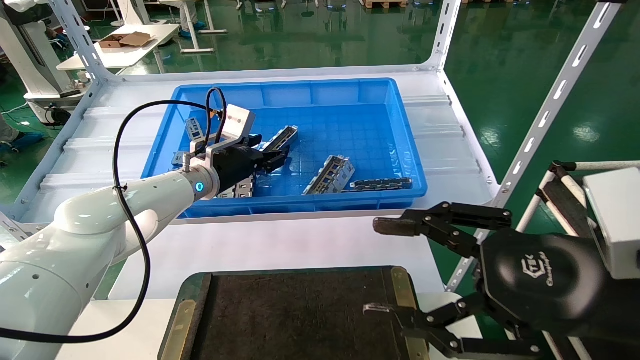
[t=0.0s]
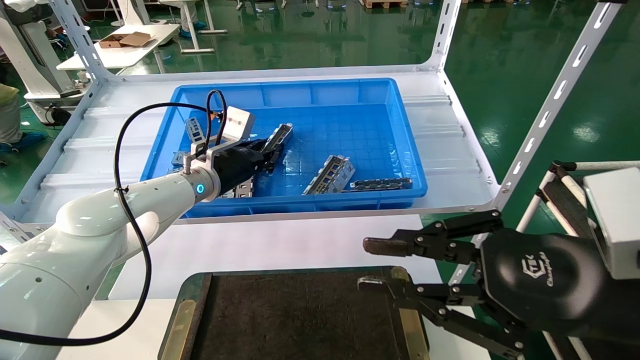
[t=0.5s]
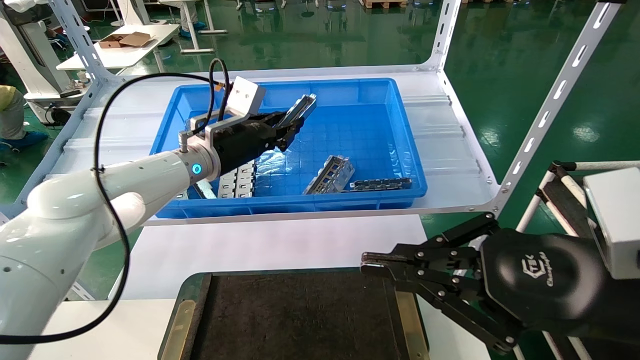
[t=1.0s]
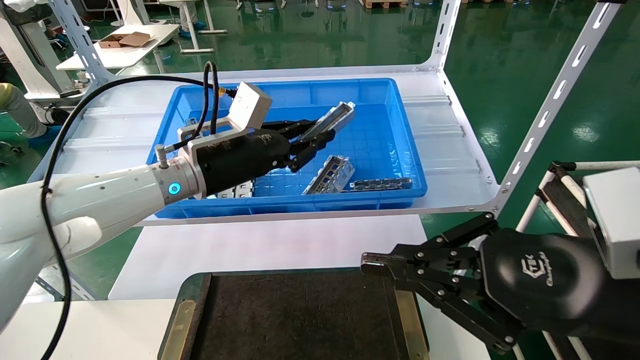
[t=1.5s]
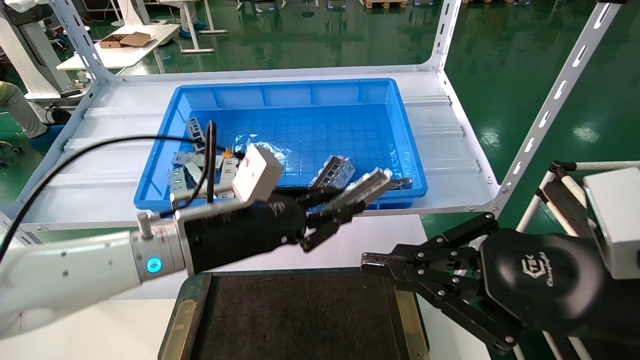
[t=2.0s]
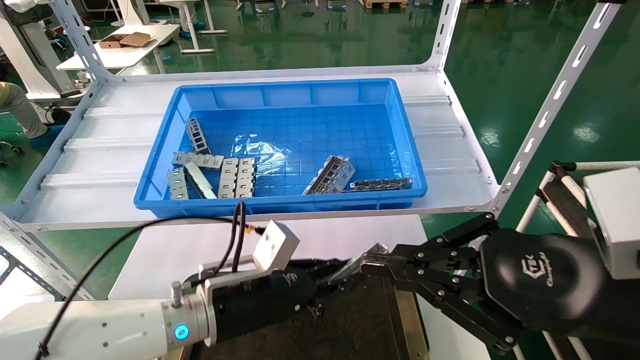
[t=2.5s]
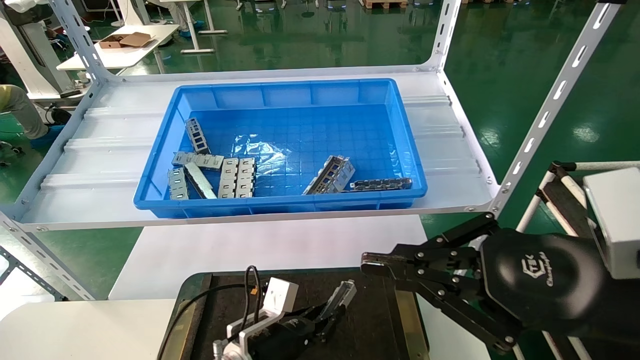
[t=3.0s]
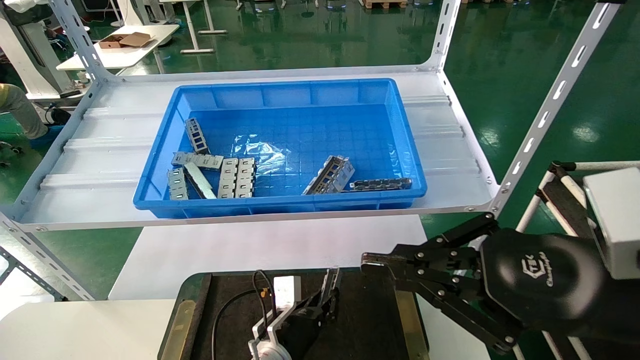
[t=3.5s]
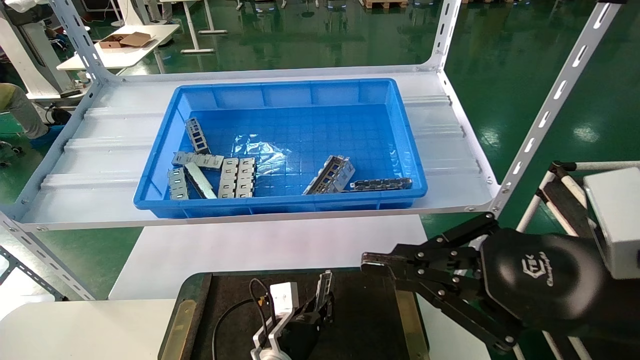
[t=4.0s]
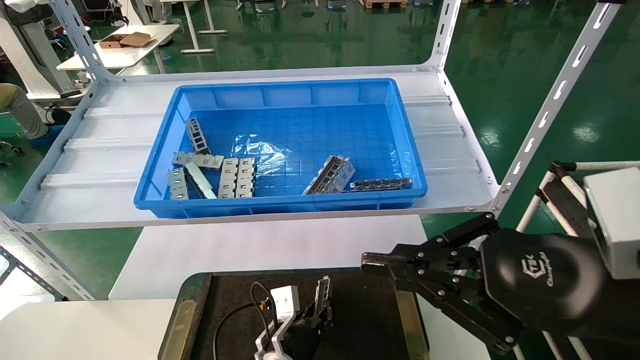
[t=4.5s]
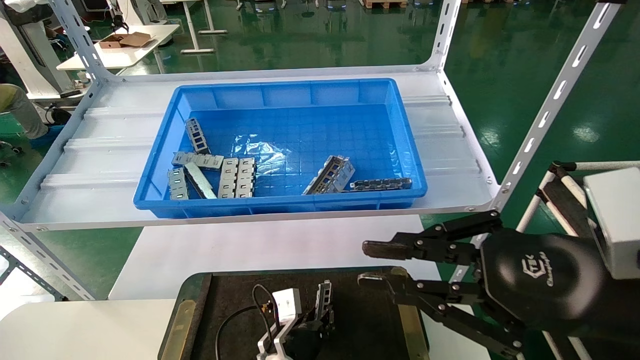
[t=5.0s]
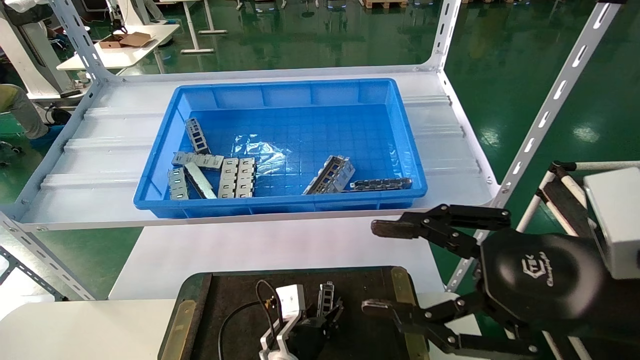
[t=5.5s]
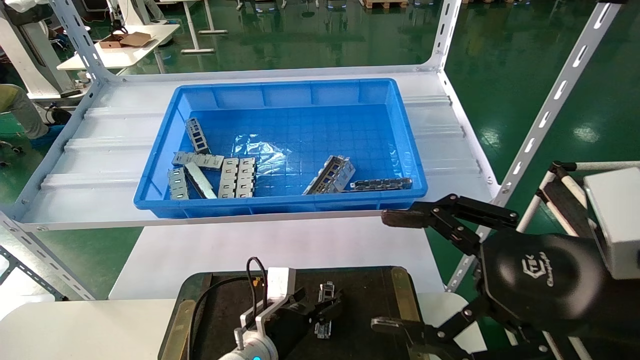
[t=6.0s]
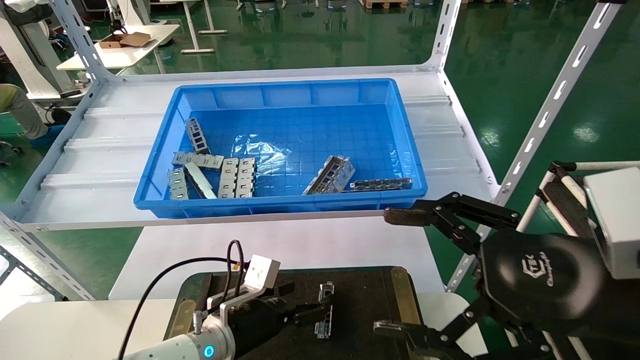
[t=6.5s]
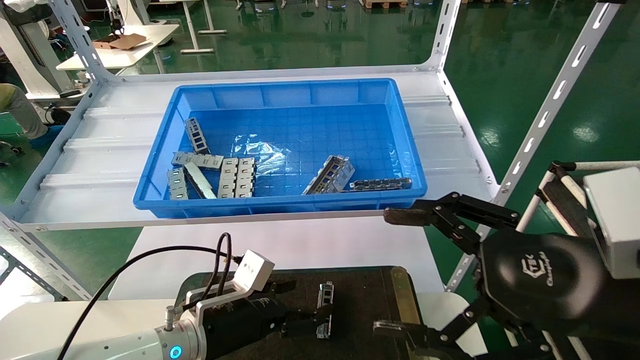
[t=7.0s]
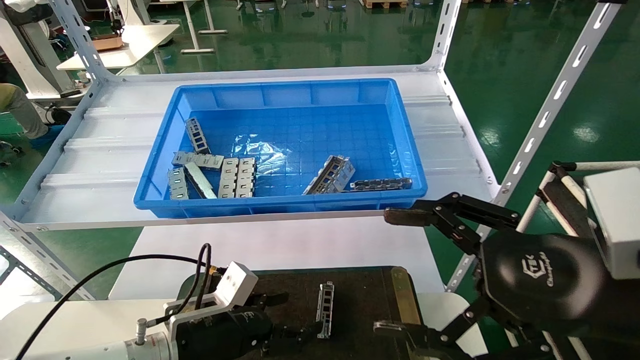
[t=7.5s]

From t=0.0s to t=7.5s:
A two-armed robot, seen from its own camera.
Task of the whole recording: Grasp the part with one hand and place it on the black container.
Step, from t=1.5s to t=5.5s: Place the front USB bracket into the box.
From t=0.0s to t=2.0s: The left gripper travels backward by roughly 15 cm, and closes up; the right gripper closes.
From t=2.0s to t=4.0s: The left gripper travels downward by some 25 cm.
From t=4.0s to t=5.5s: The right gripper opens its fingers.
From t=5.5s to t=7.5s: The right gripper opens its fingers. Meanwhile the left gripper shifts about 20 cm to the left, upward and backward, and opens its fingers.
